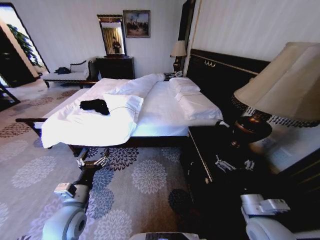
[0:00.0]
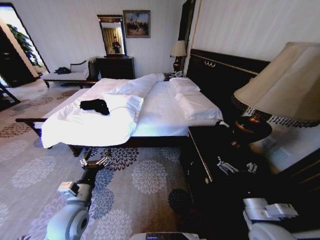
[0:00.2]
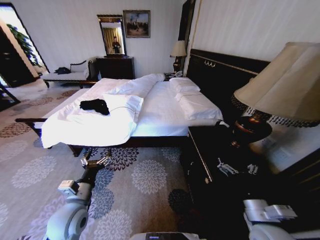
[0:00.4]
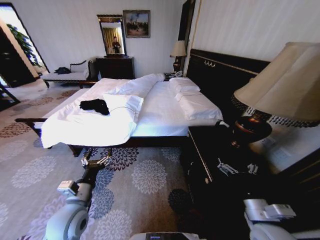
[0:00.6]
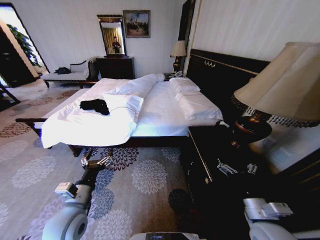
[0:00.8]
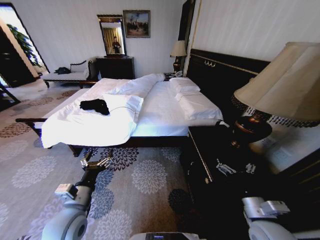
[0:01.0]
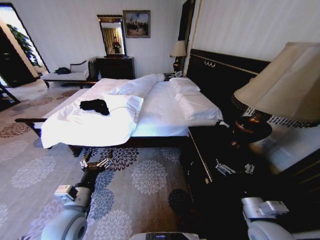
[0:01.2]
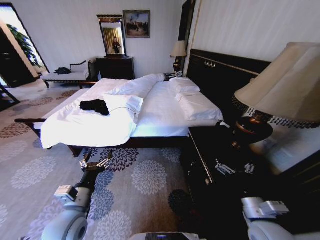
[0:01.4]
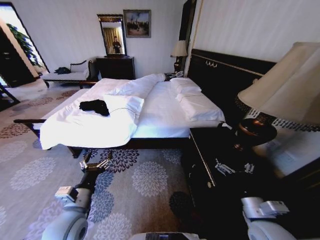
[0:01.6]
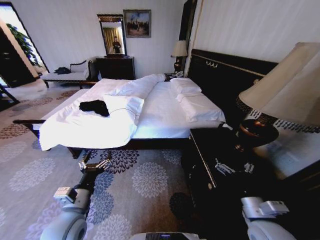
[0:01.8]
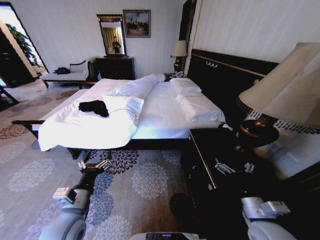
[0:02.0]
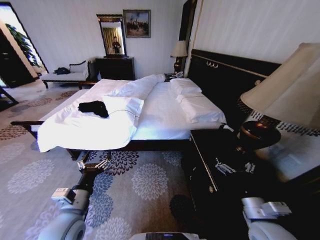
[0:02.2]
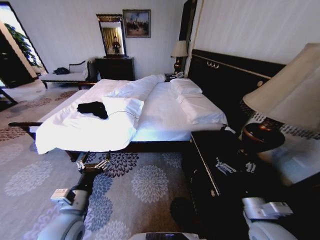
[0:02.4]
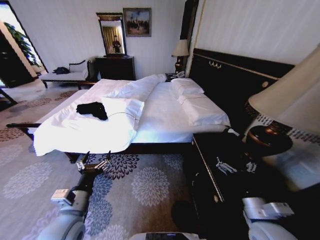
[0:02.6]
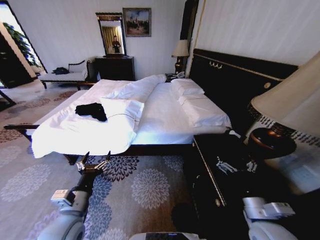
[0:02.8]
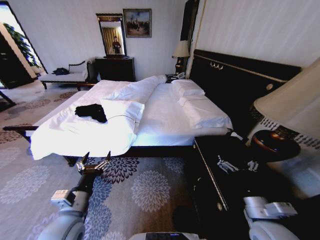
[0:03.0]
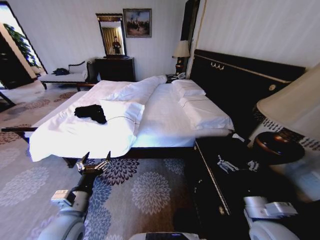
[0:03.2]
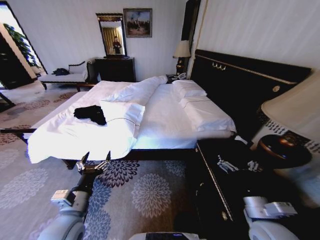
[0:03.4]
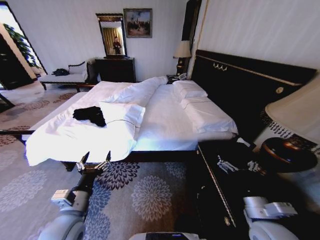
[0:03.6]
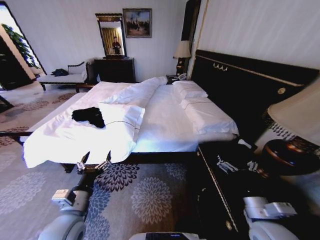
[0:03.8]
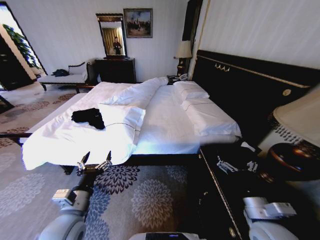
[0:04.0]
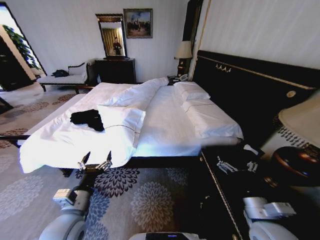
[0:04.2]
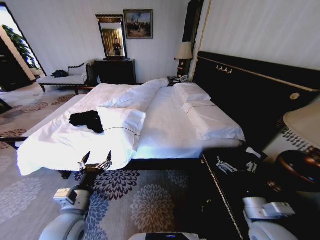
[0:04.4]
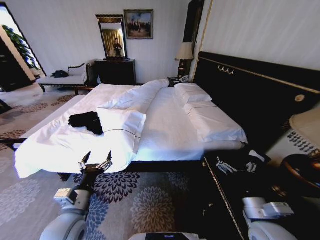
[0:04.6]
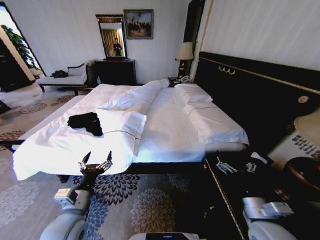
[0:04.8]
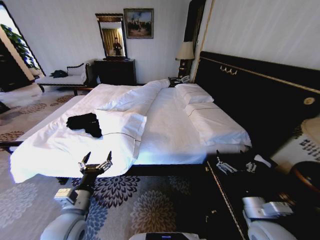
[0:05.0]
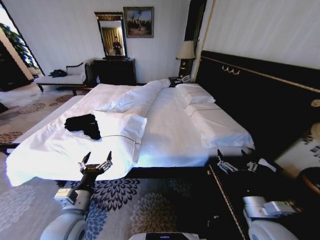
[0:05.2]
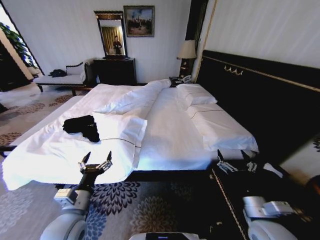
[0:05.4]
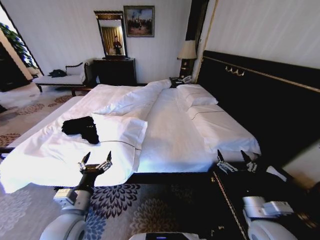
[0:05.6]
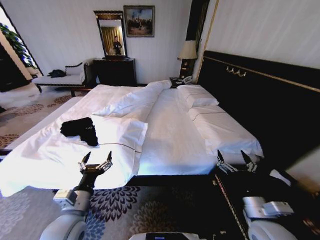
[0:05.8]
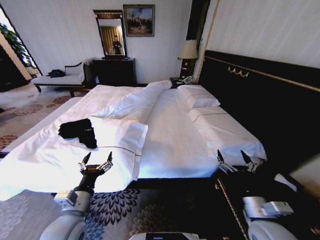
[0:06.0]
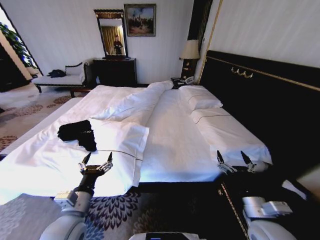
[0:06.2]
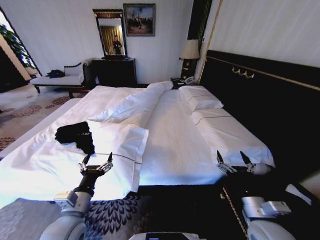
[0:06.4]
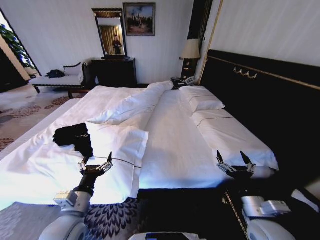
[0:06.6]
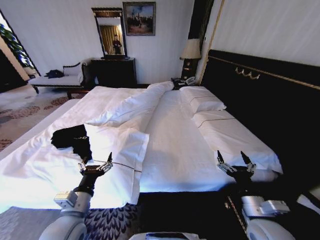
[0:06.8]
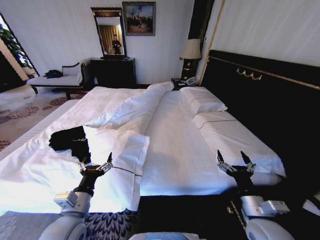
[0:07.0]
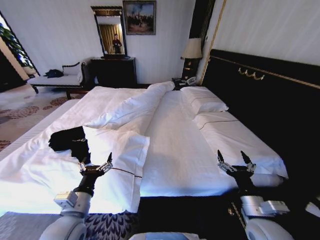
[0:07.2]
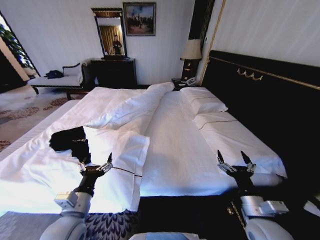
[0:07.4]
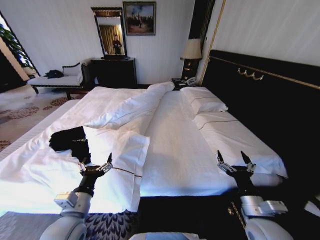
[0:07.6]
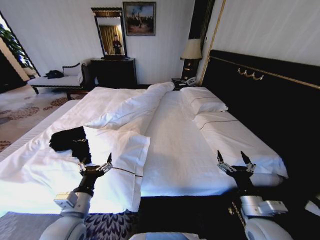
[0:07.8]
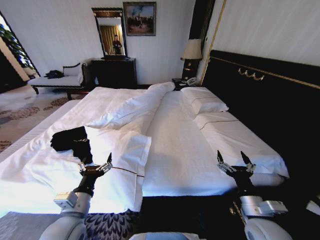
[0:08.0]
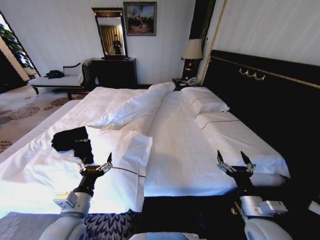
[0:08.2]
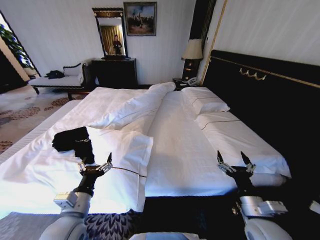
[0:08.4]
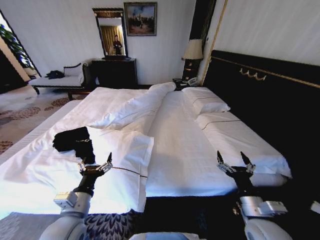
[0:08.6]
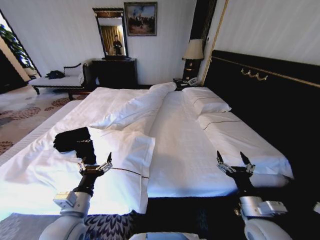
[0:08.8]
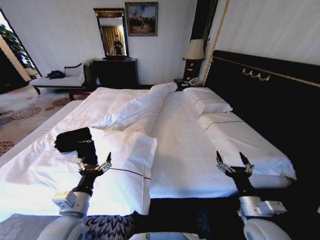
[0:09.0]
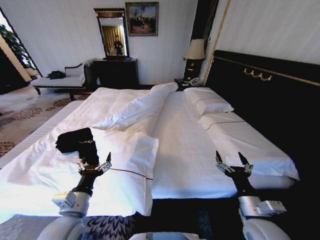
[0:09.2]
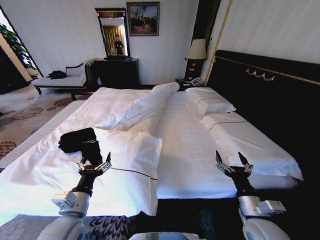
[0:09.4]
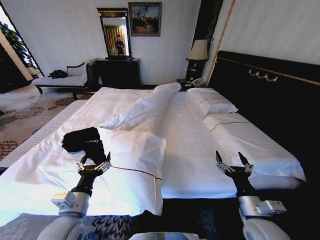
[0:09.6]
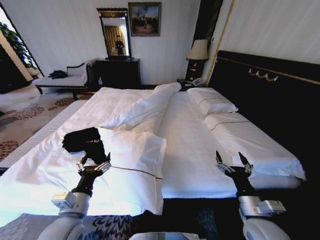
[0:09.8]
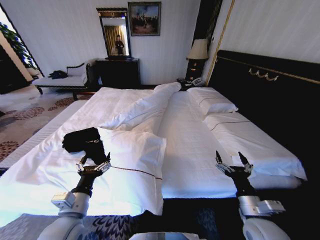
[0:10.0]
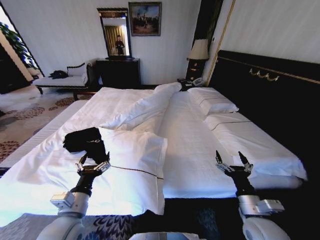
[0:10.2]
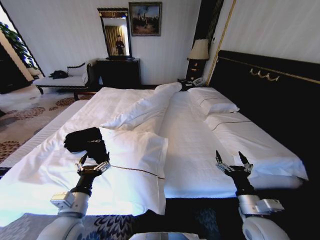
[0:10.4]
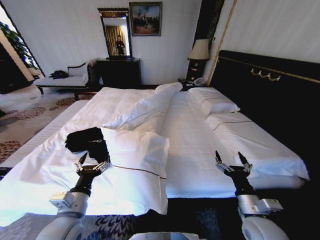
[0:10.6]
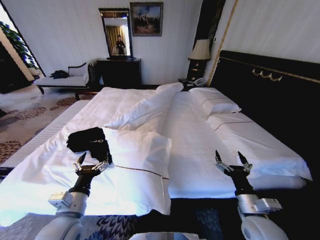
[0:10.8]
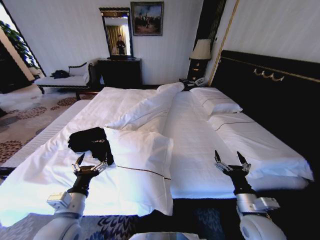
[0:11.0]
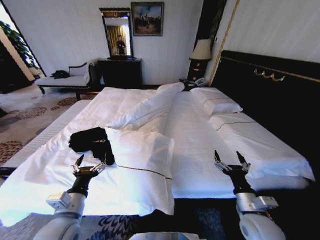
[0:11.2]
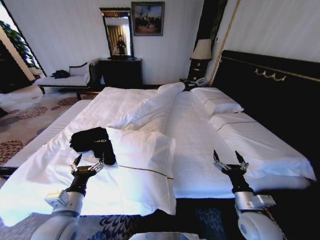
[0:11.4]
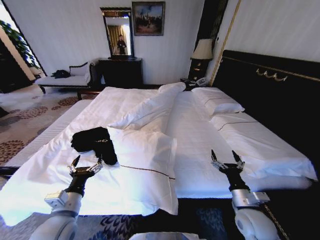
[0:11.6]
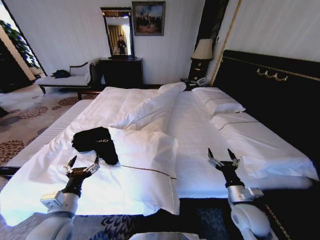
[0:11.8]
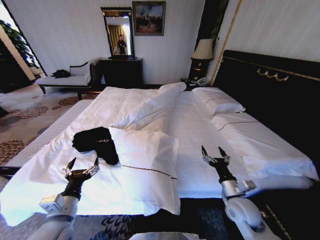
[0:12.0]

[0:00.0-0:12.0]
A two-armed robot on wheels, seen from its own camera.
Task of the whole recording: Fold the clothes on the bed.
0:07.6 to 0:09.0: Both grippers stay put.
0:10.4 to 0:12.0: The right gripper heads forward, covering approximately 5 cm.

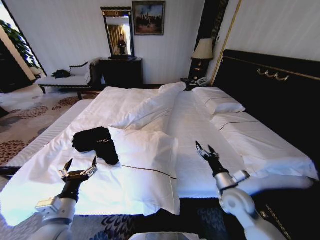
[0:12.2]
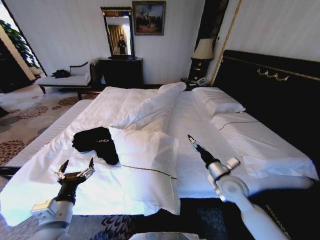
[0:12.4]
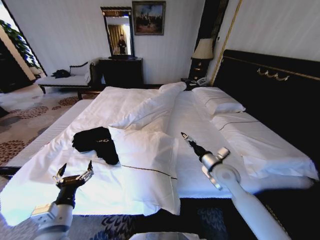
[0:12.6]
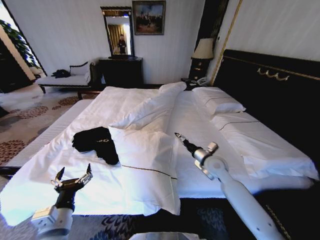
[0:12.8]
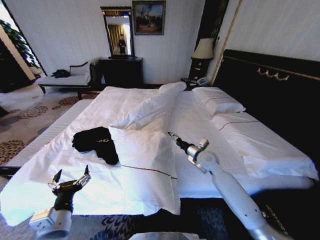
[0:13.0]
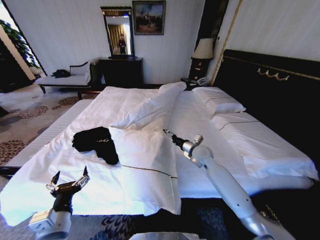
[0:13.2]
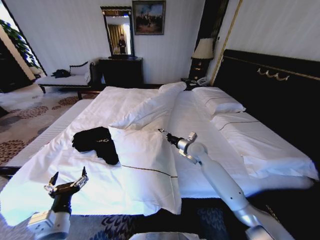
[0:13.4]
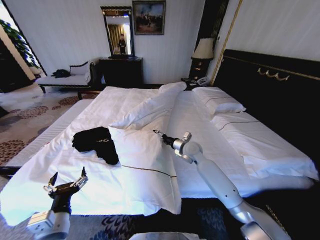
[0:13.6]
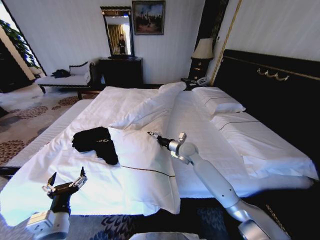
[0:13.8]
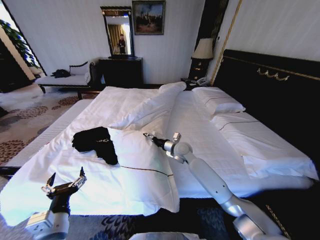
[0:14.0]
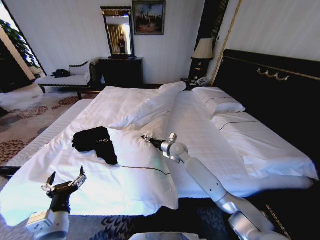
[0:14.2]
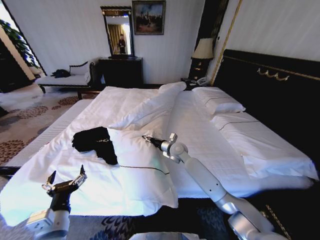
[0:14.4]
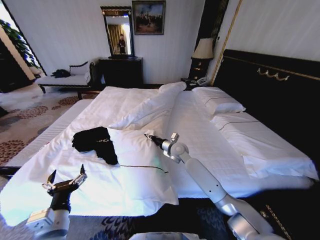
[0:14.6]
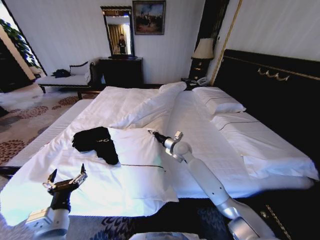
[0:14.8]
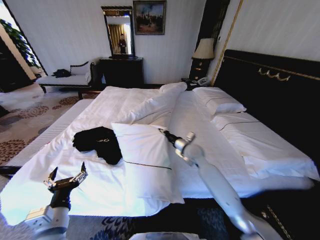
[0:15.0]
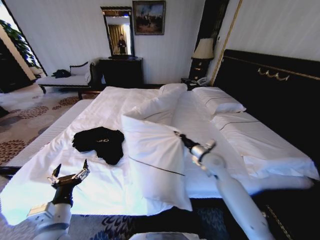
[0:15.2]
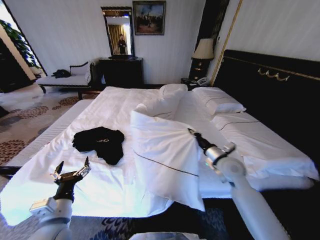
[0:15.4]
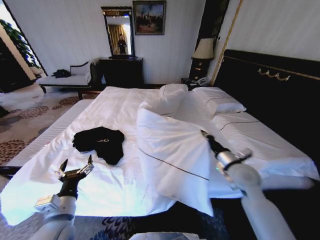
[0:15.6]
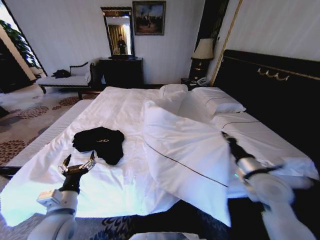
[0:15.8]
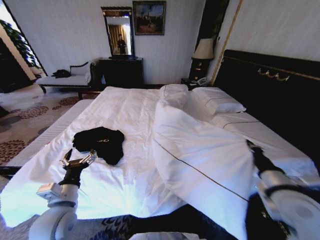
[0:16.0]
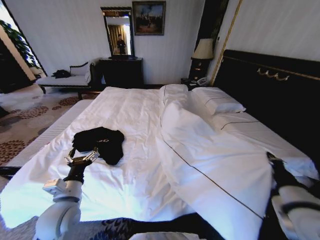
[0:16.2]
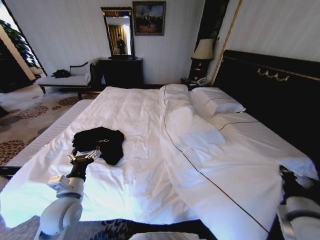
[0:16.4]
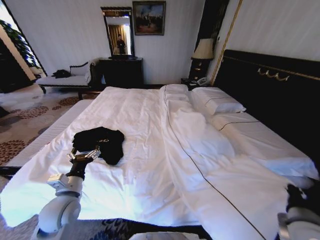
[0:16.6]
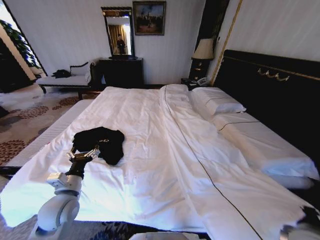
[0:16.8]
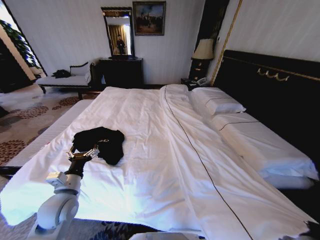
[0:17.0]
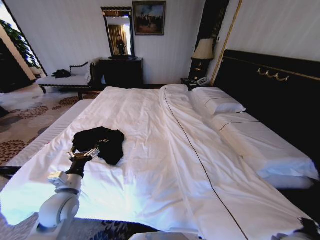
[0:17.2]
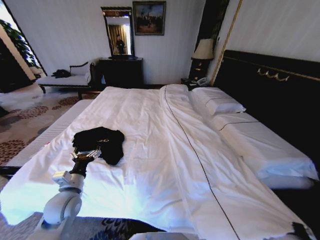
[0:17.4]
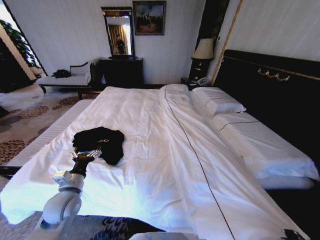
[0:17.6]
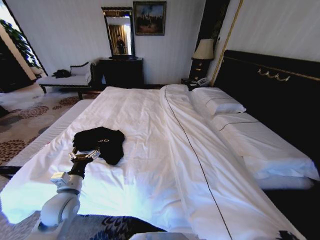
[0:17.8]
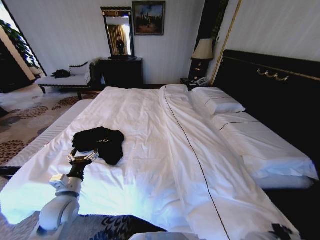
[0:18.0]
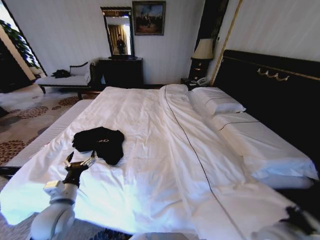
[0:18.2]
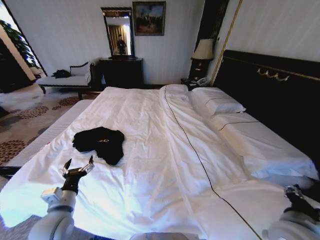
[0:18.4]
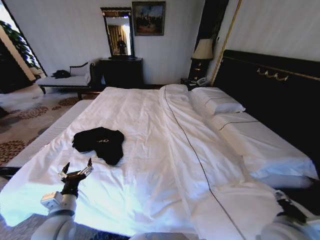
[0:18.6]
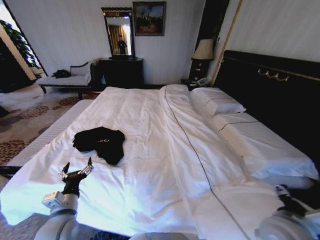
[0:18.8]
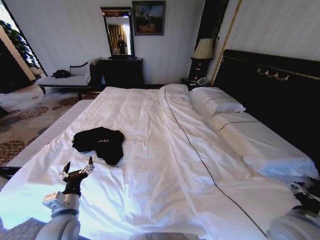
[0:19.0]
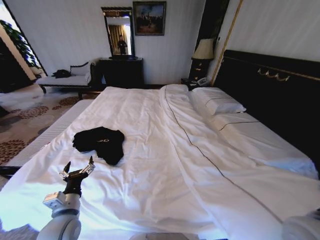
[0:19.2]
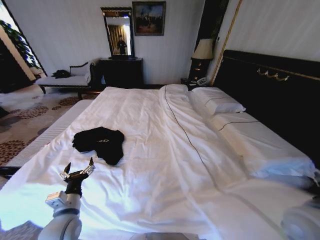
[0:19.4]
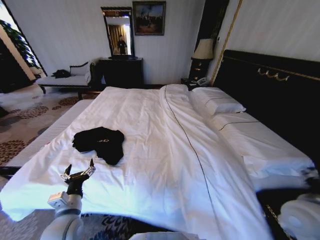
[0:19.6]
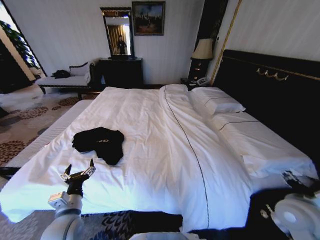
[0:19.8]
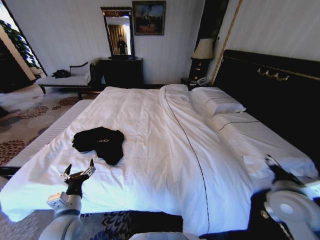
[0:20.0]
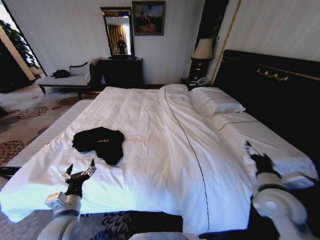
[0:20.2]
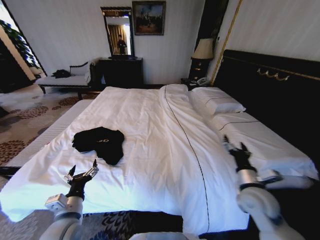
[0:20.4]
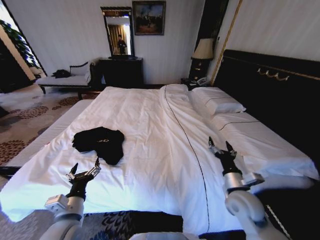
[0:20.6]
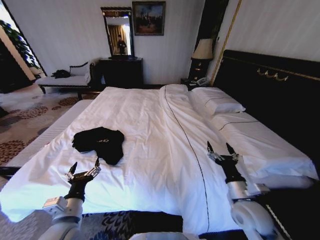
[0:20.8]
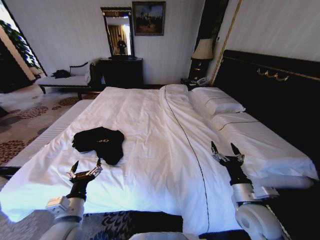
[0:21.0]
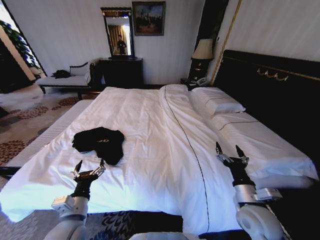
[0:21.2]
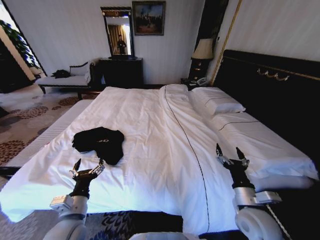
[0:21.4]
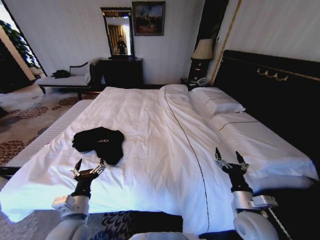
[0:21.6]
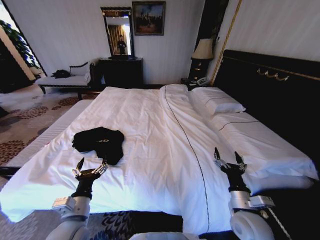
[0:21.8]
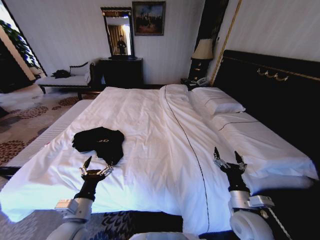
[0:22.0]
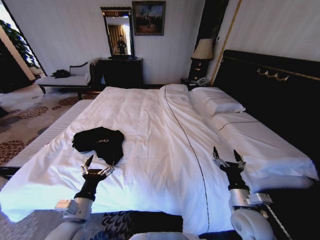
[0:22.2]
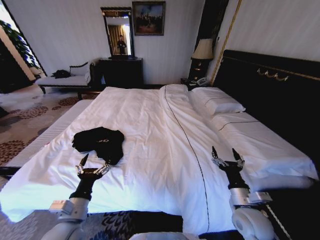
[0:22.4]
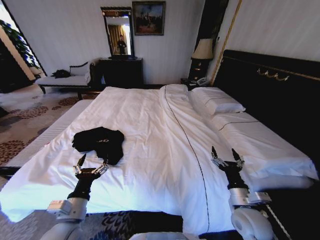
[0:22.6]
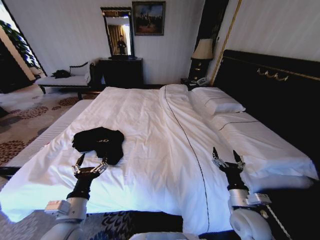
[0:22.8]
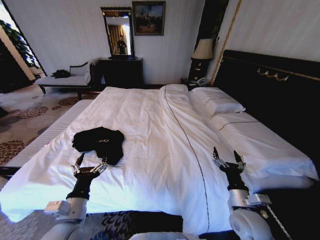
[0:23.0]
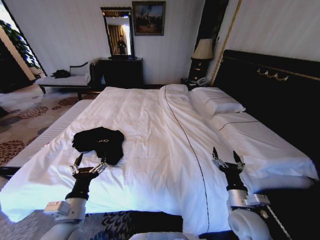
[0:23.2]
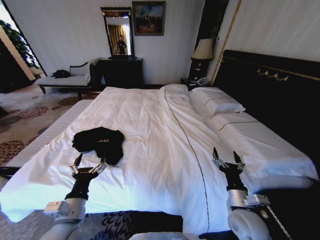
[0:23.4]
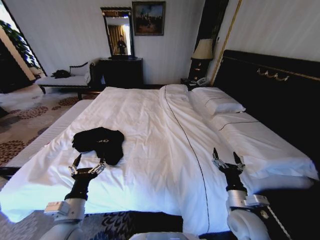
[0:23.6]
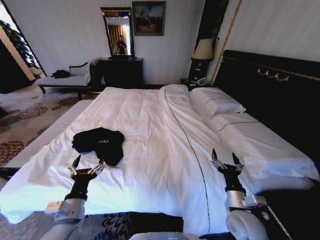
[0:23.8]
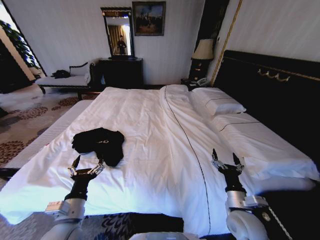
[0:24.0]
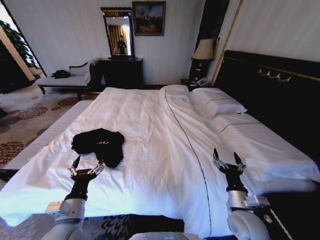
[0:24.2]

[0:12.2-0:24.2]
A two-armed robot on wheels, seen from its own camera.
Task of the whole recording: Fold the clothes on the bed.
0:12.2 to 0:13.8: The right gripper shifts approximately 25 cm forward and to the left.
0:13.8 to 0:15.2: The right gripper moves to the right and backward, approximately 10 cm, and closes its fingers.
0:15.2 to 0:16.6: The left gripper shifts roughly 10 cm forward, while the right gripper shifts roughly 30 cm backward and to the right.
0:16.6 to 0:18.2: The right gripper is displaced to the left by some 5 cm, and travels downward and back again, about 10 cm each way.
0:18.2 to 0:19.8: The right gripper goes roughly 10 cm to the right and forward, and opens up.
0:19.8 to 0:21.2: The right gripper heads to the left and downward, covering roughly 10 cm.
0:21.2 to 0:24.2: The grippers stay close to where they were, moving slightly.
